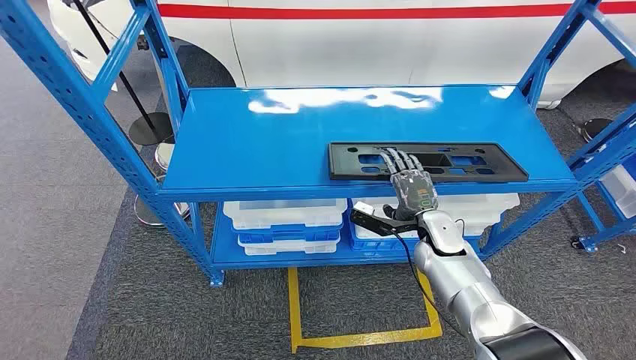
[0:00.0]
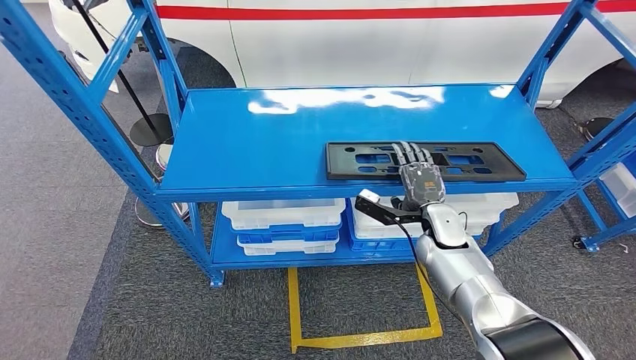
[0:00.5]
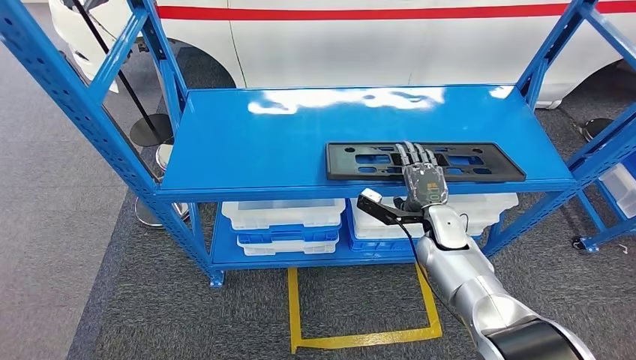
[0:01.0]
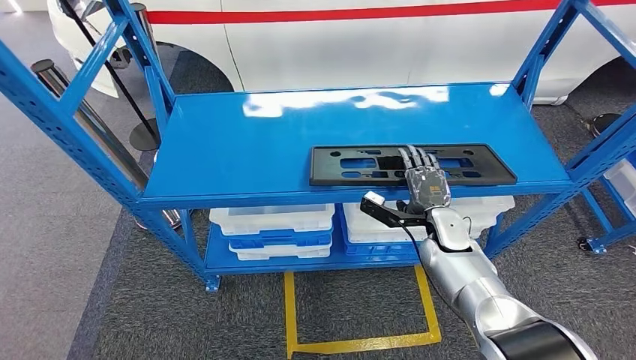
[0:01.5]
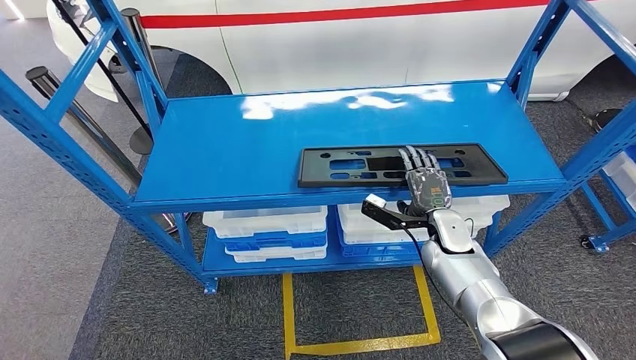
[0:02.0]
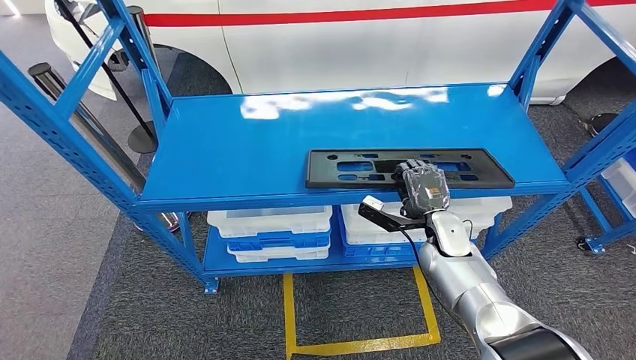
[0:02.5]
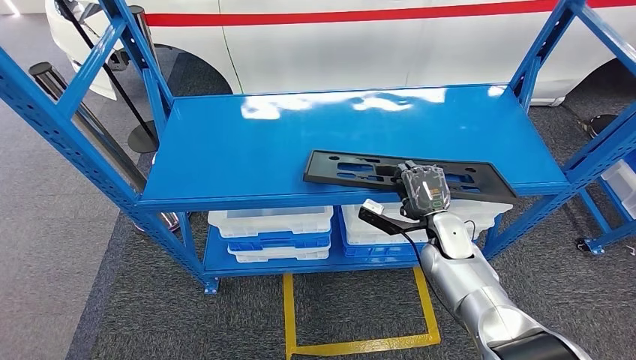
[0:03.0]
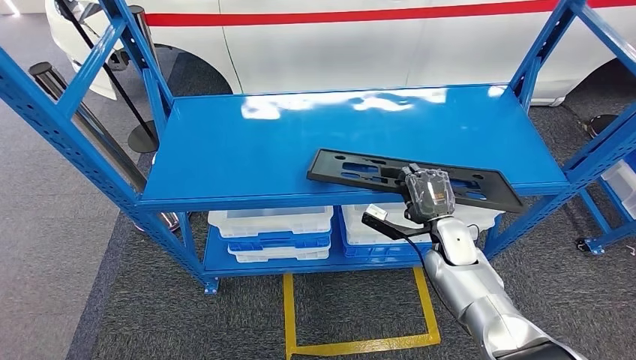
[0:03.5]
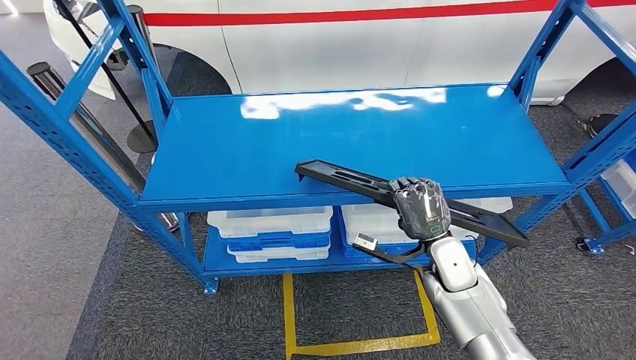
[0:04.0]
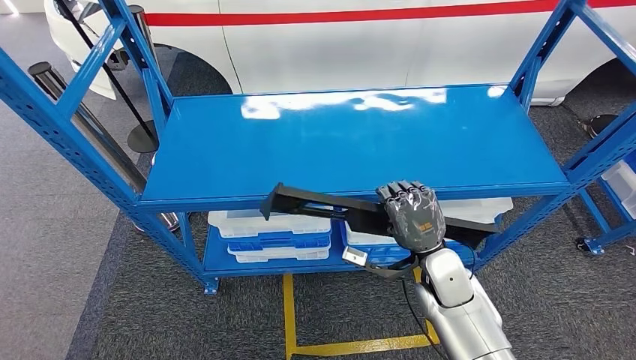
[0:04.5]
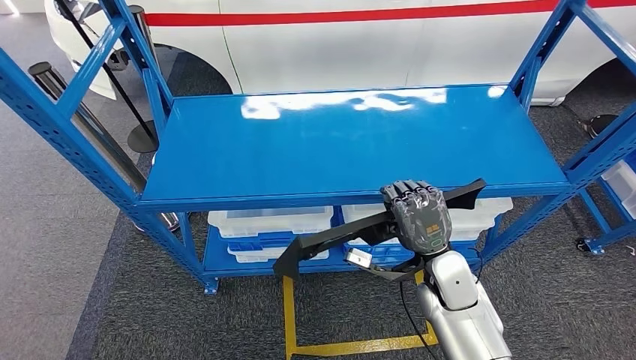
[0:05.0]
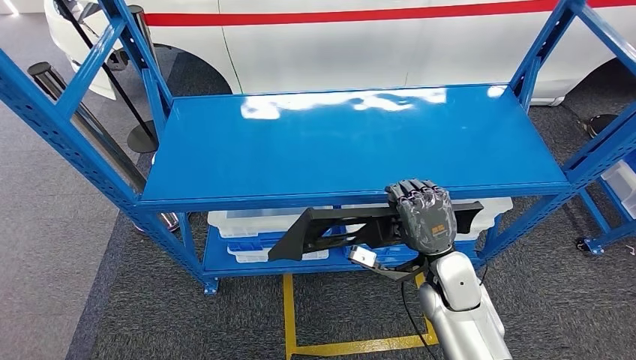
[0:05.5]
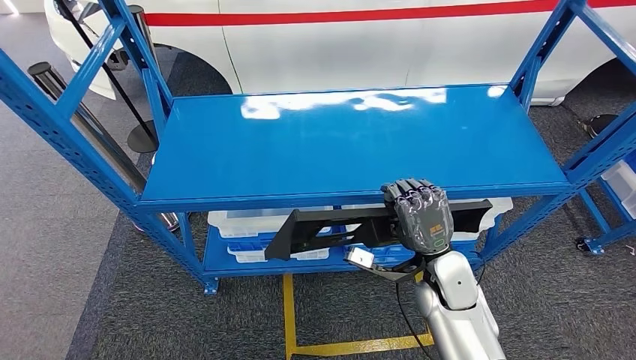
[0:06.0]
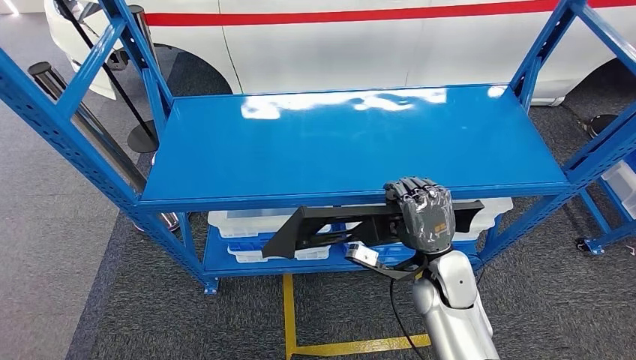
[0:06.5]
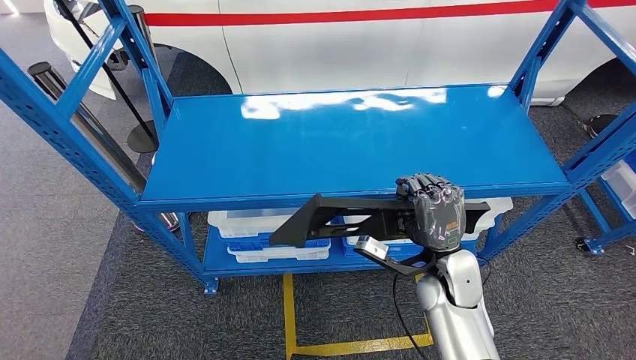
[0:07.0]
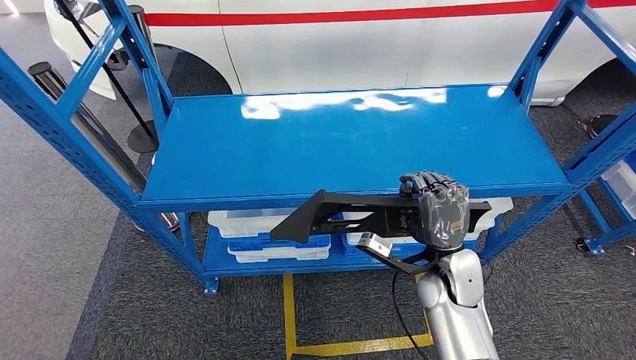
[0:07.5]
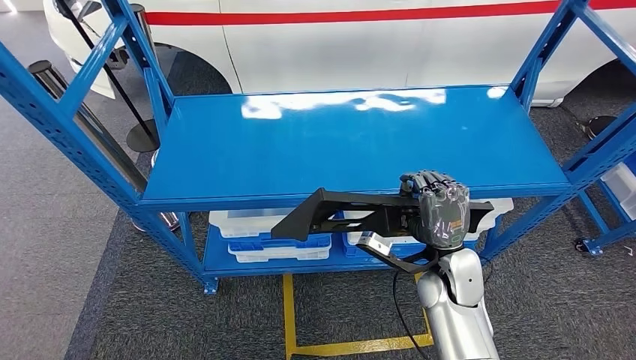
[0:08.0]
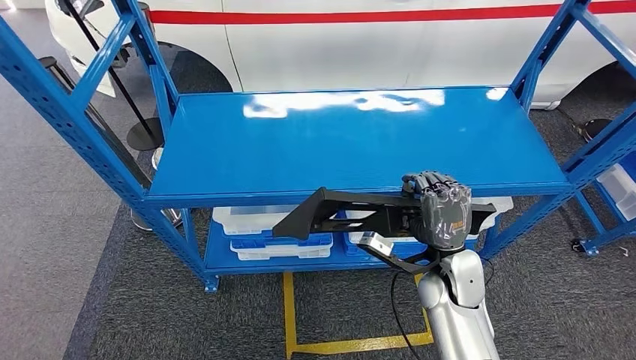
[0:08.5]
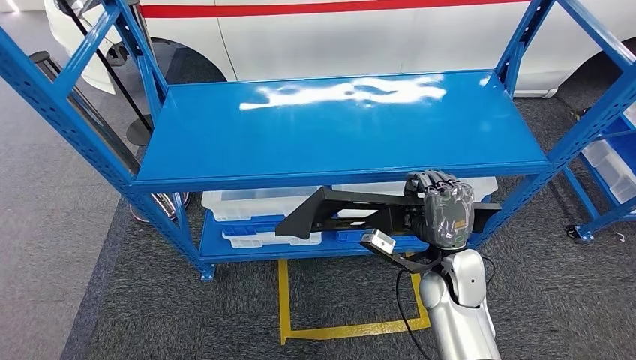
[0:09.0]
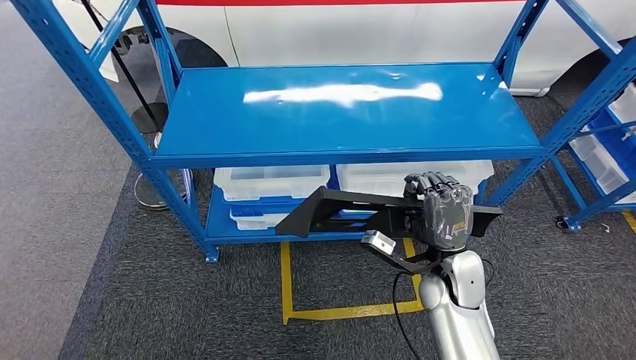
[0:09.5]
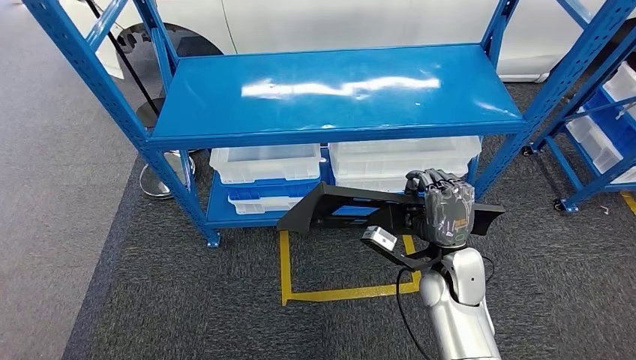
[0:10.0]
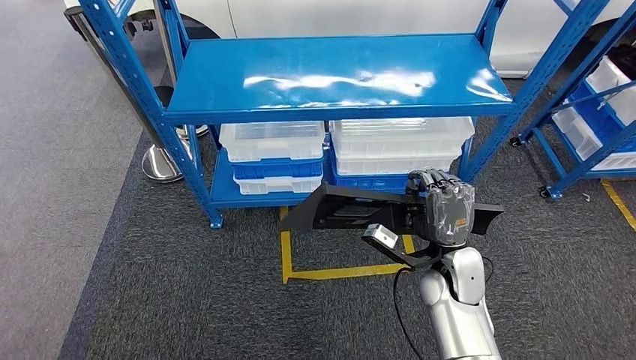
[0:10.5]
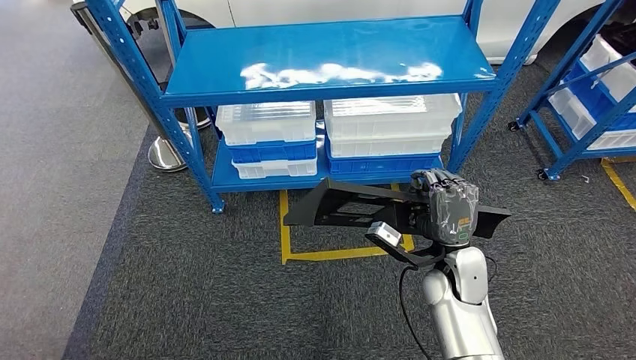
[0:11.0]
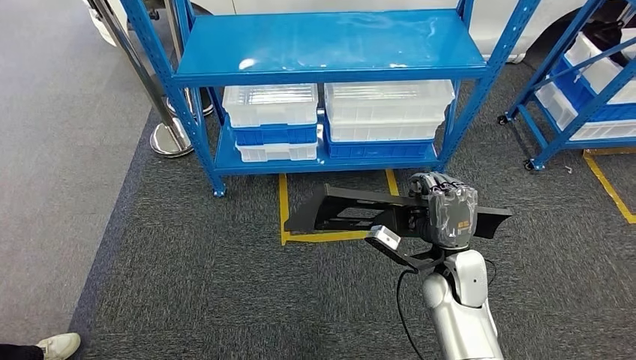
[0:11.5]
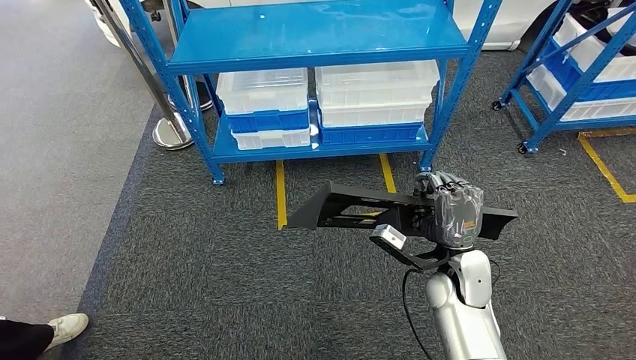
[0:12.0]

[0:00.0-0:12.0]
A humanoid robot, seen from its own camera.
Step, 0.0 to 5.5 s: Pick up the large material from the shelf.
4.0 to 6.0 s: The hands move only a little.
6.0 to 8.0 s: The hands move only a little.

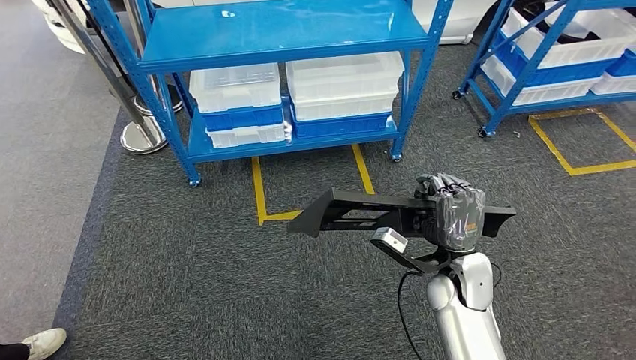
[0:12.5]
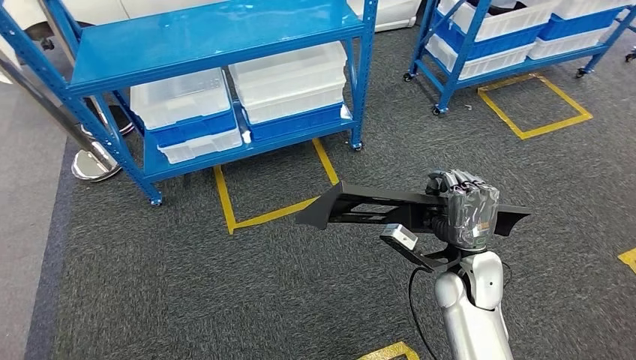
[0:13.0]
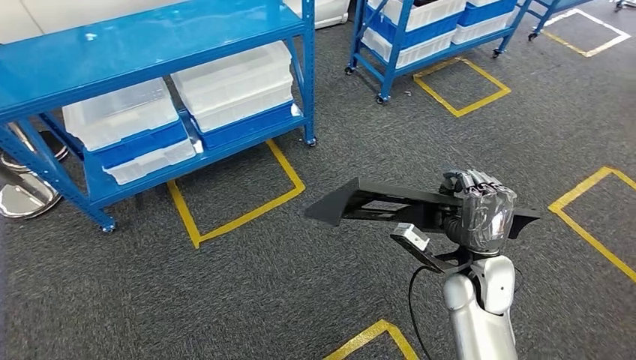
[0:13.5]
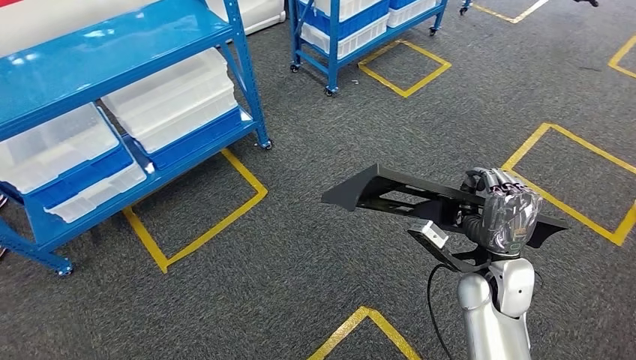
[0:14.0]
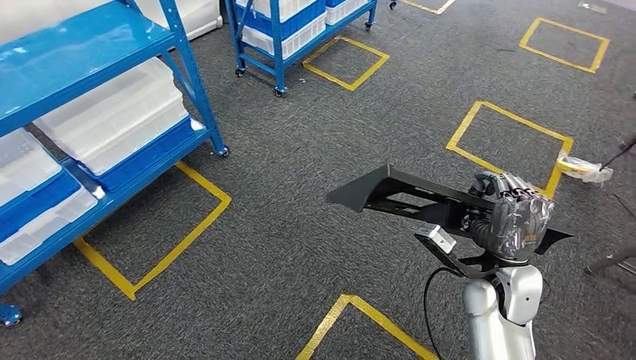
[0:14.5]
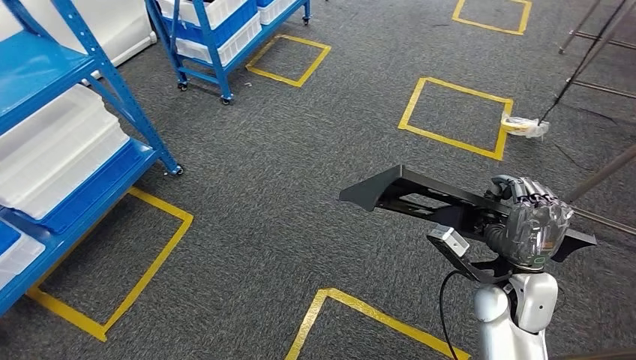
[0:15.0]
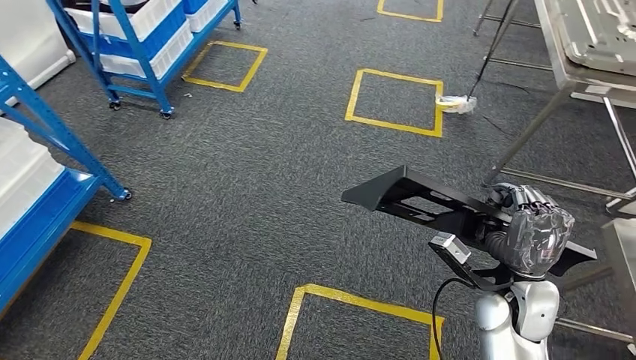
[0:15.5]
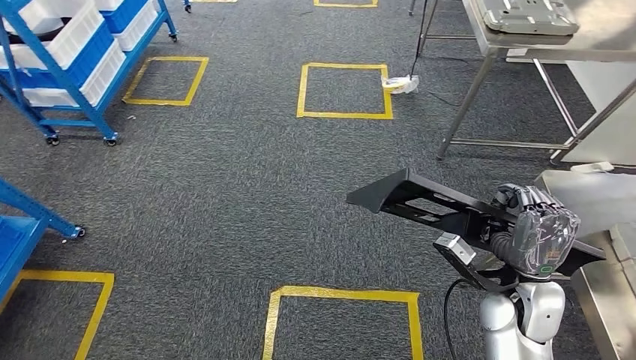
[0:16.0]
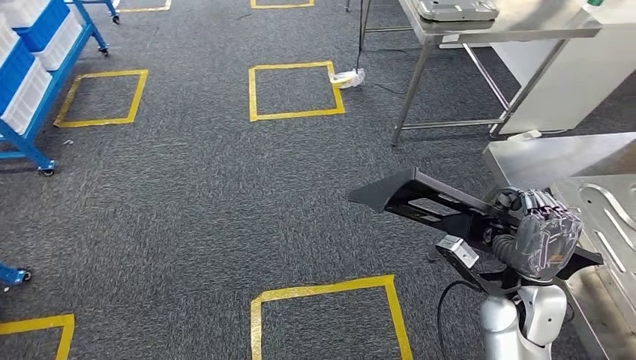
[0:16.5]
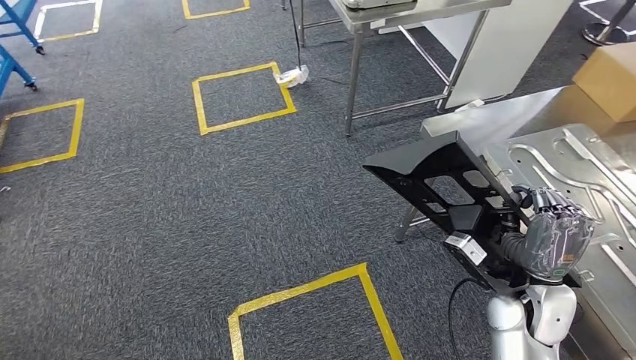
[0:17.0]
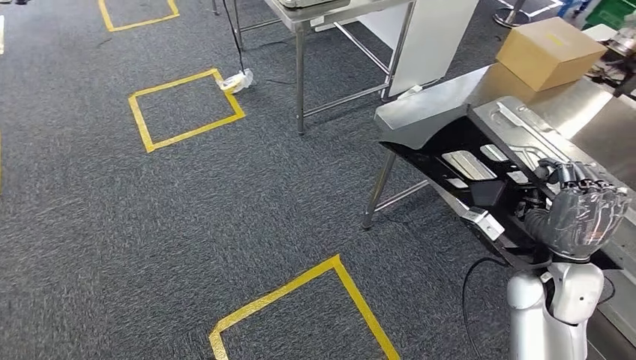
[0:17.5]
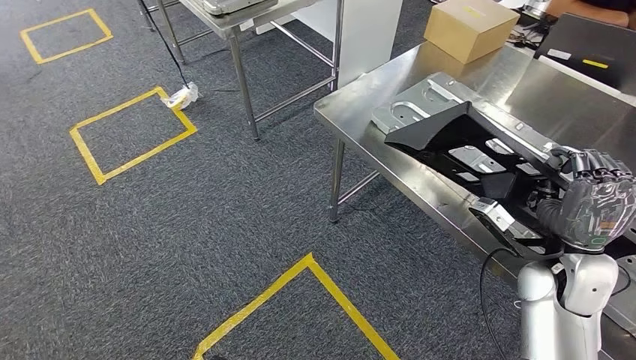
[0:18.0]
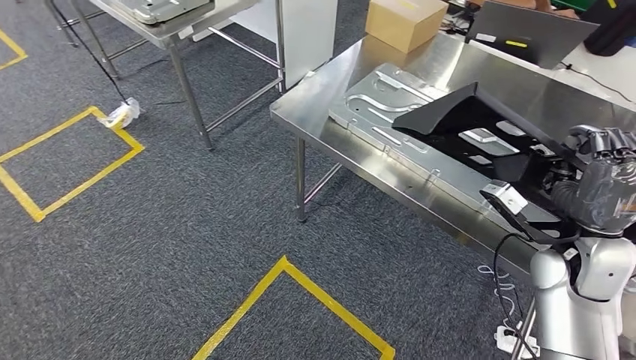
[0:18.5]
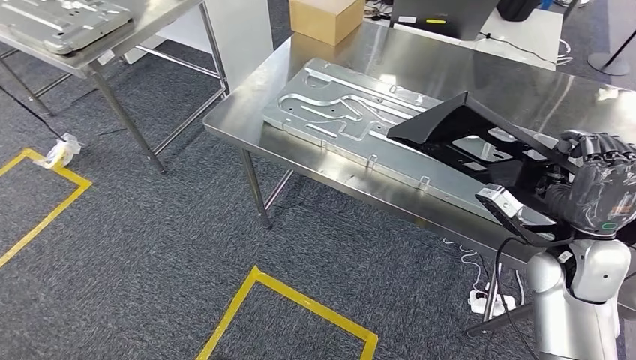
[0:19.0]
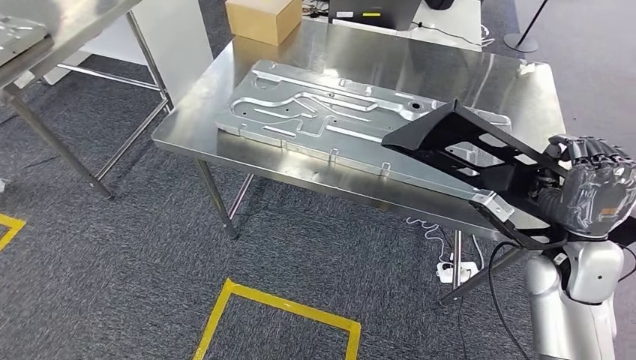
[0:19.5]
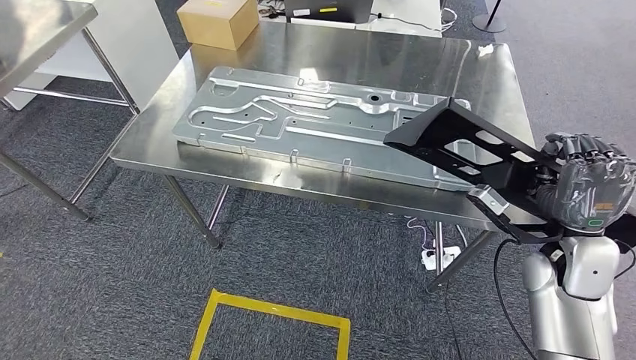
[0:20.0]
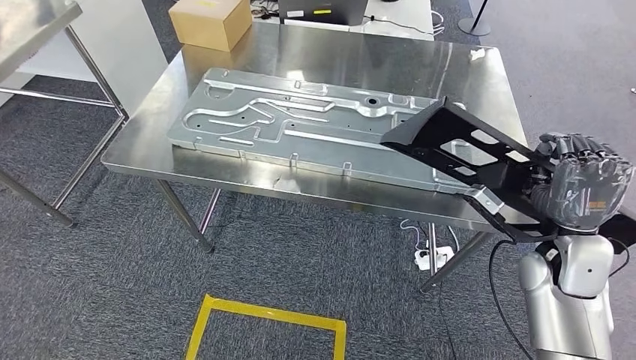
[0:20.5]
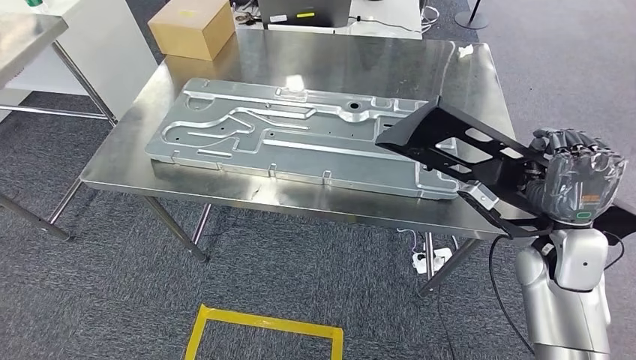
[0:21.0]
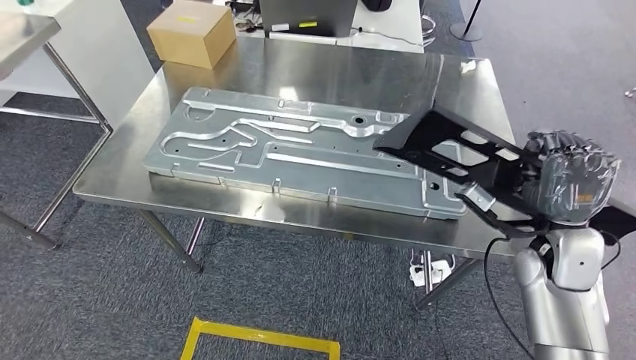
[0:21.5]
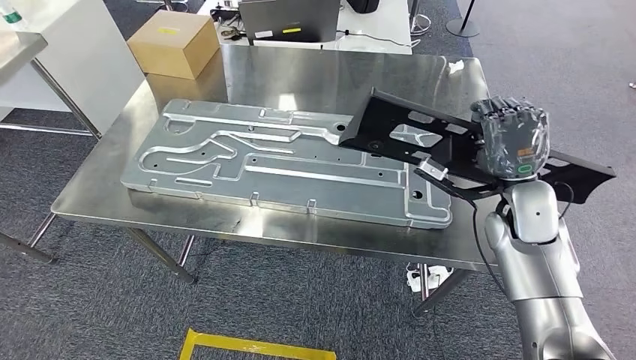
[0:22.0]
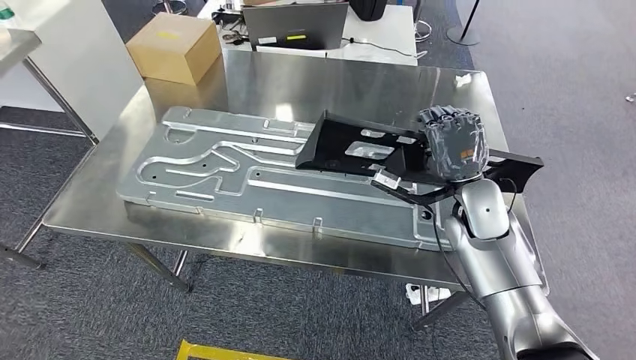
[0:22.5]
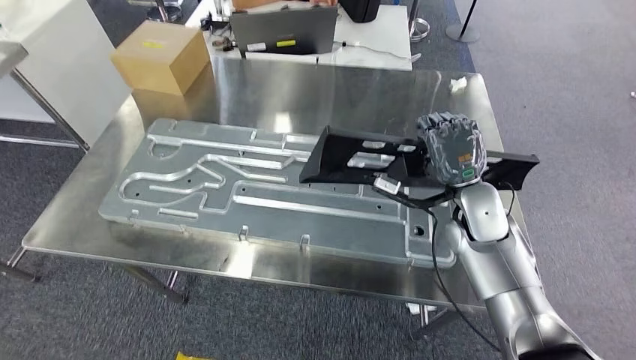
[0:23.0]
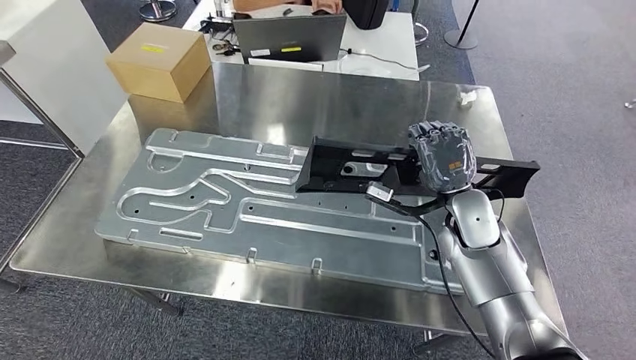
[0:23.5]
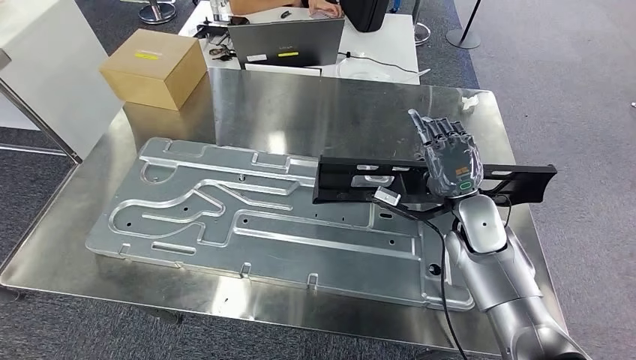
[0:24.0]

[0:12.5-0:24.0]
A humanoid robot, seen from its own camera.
Step, 12.5 to 17.5 s: Move the large material to the workbench.
